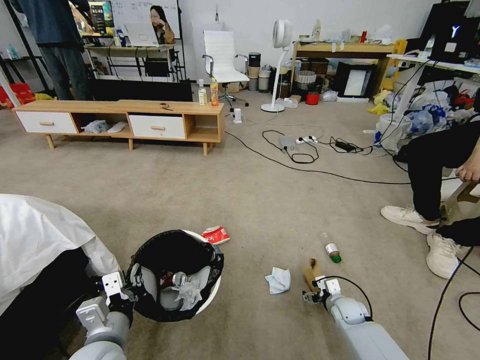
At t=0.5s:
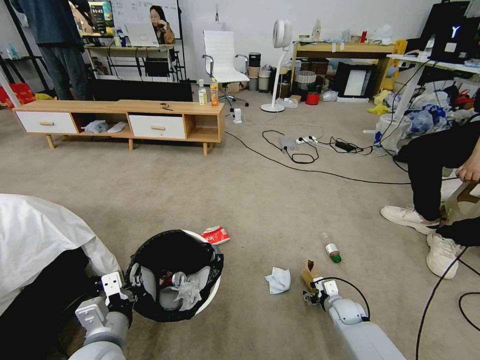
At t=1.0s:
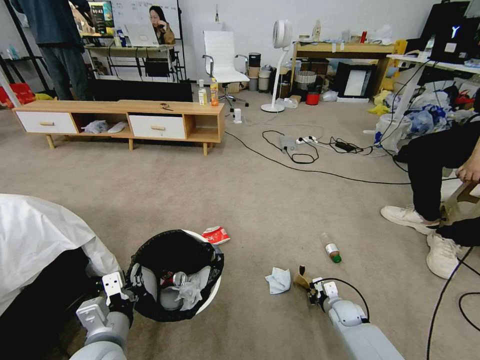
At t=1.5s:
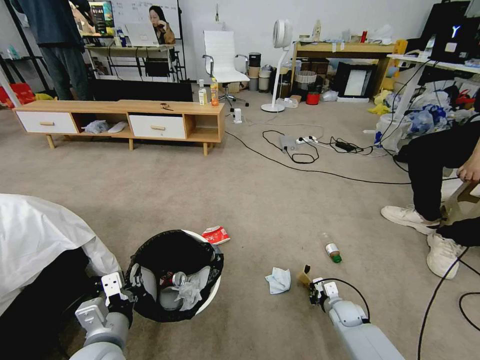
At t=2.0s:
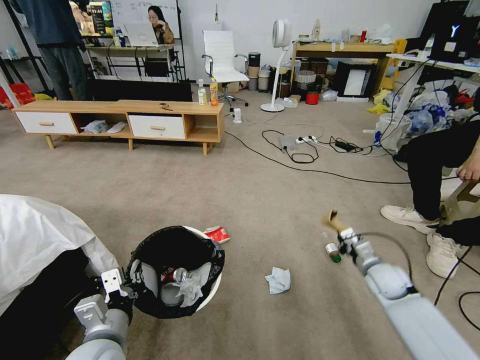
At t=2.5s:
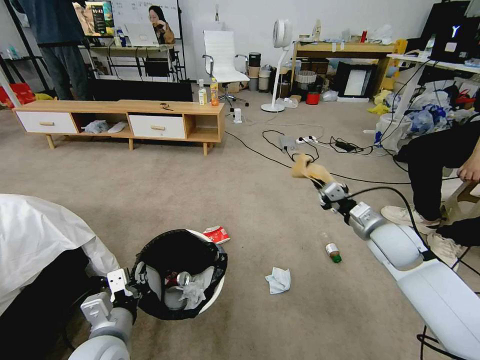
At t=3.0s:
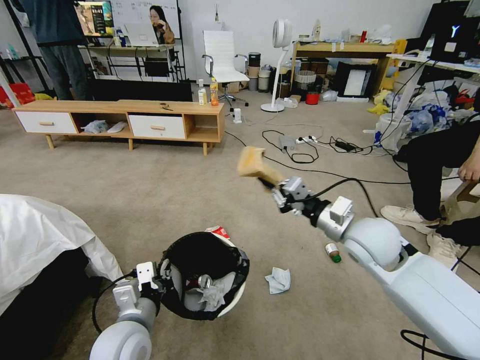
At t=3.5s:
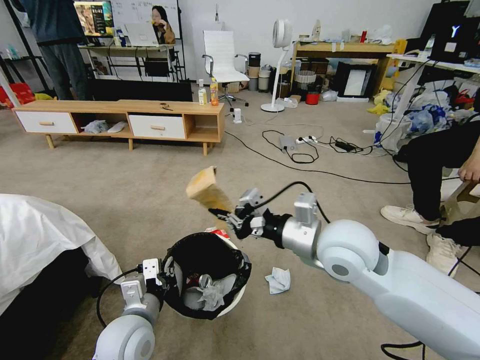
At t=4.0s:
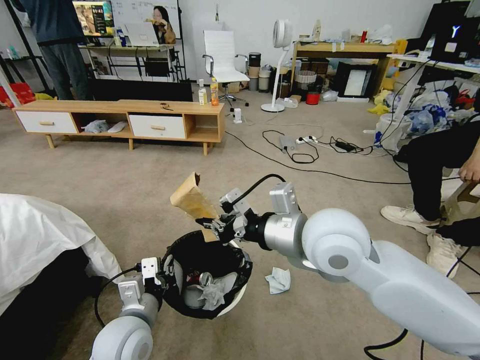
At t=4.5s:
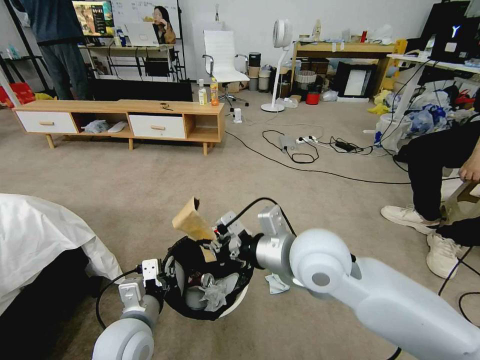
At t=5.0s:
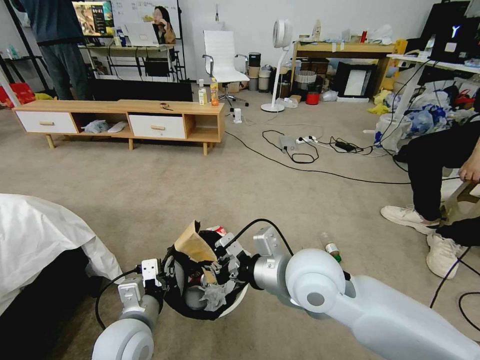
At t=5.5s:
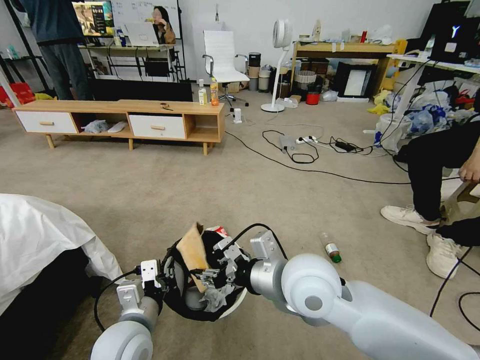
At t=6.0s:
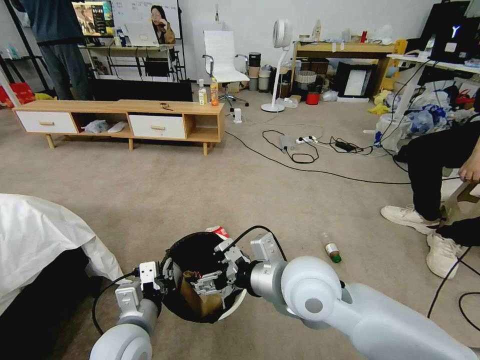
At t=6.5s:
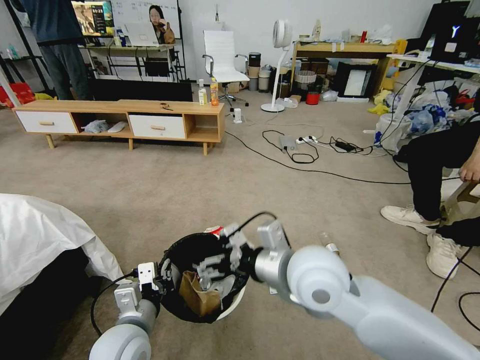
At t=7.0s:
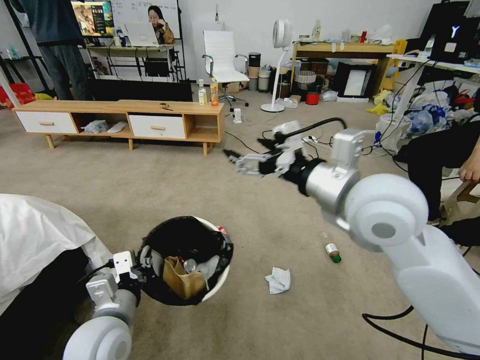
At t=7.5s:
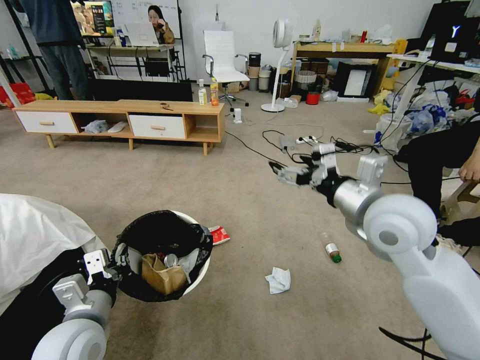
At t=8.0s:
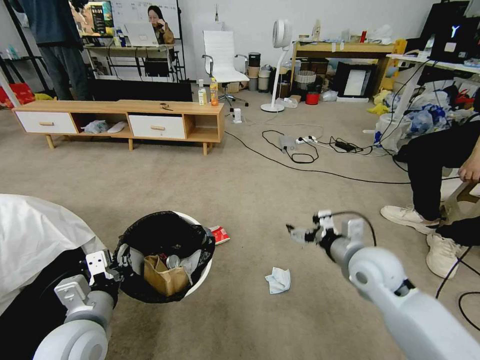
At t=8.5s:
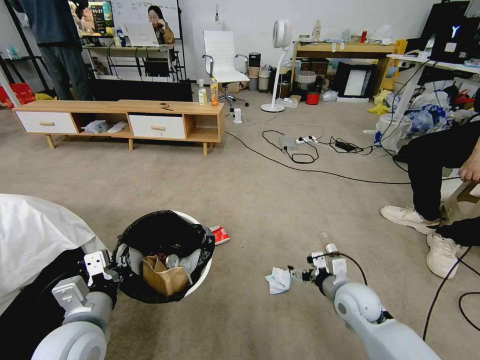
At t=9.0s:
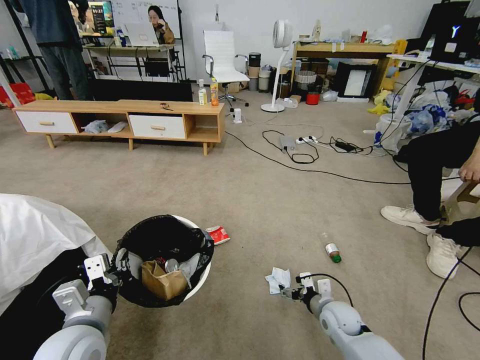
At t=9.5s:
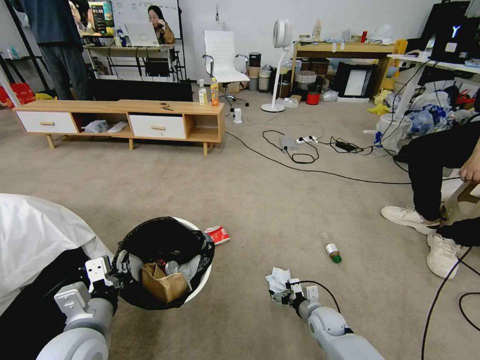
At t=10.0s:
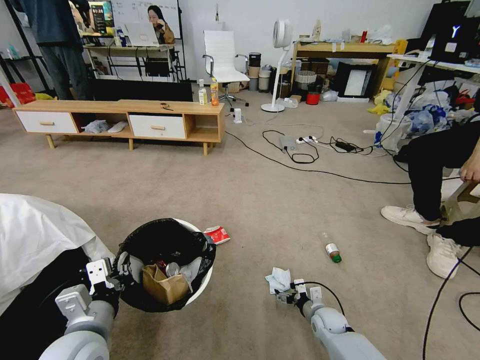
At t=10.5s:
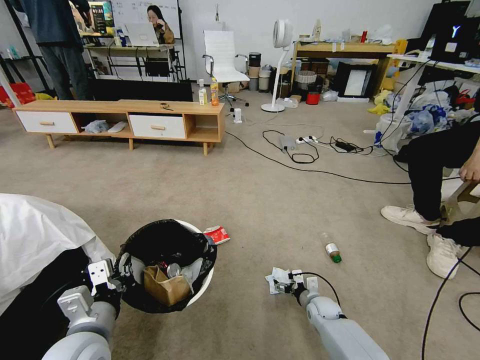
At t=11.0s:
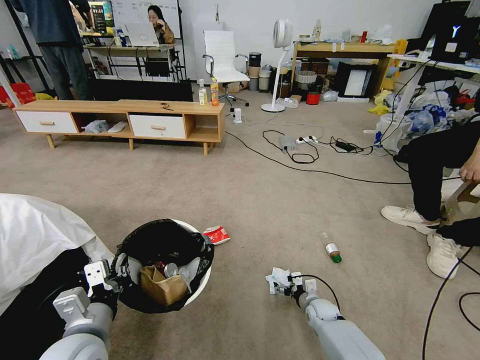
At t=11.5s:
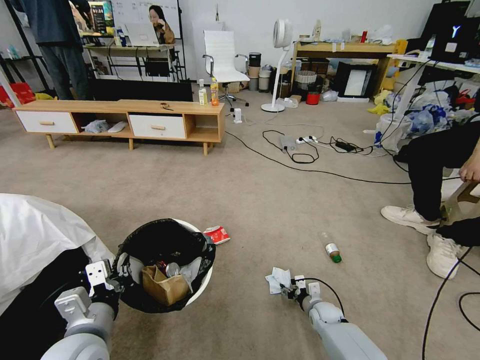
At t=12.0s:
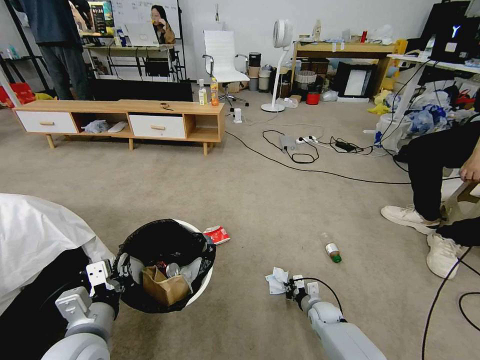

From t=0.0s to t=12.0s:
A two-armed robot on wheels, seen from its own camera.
Task of the whole recording: Pick up the trash bin and place the garbage on the floor into it.
From t=0.0s to t=2.0s: The right gripper shifts some 15 cm upward, and closes its fingers.
From t=2.0s to t=4.0s: The left gripper moves roughly 5 cm. Meanwhile the right gripper is displaced upward and to the left by some 40 cm.
From t=4.0s to t=6.0s: The right gripper is displaced downward by some 10 cm, and opens up.
From t=6.0s to t=8.0s: The left gripper travels to the left by some 5 cm. The right gripper travels to the right, downward and forward by roughly 20 cm.
From t=8.0s to t=10.0s: The right gripper heads downward, covering about 30 cm.
From t=10.0s to t=12.0s: The right gripper closes its fingers.

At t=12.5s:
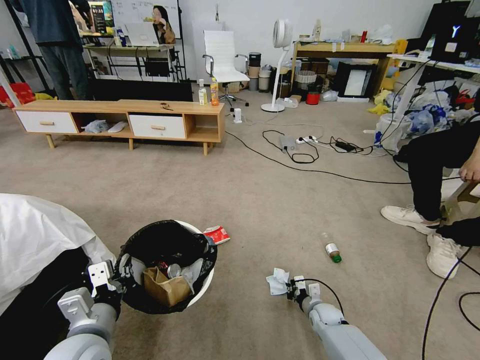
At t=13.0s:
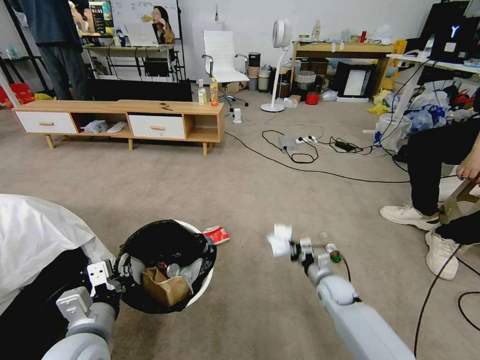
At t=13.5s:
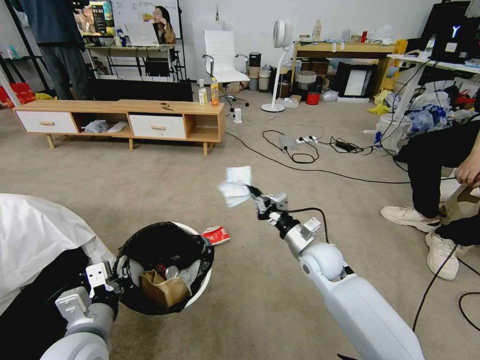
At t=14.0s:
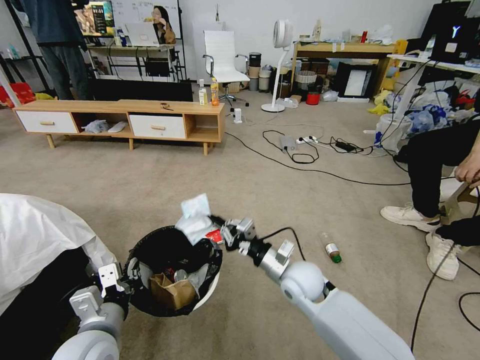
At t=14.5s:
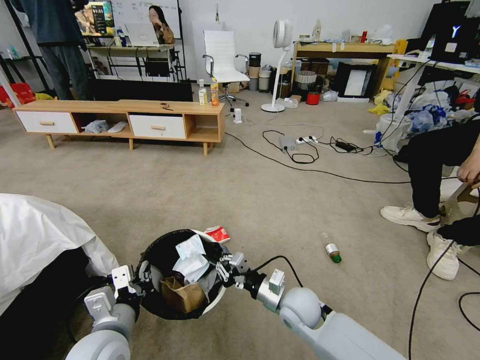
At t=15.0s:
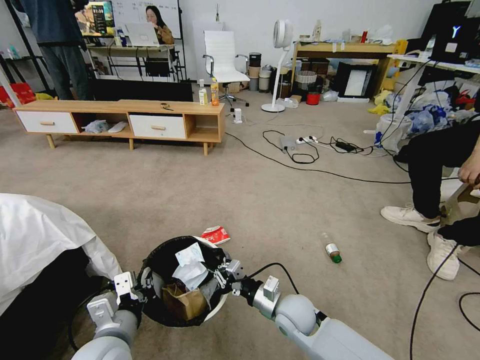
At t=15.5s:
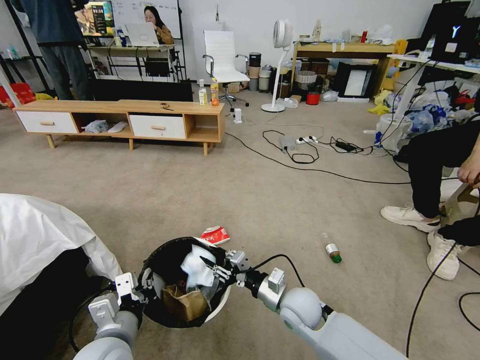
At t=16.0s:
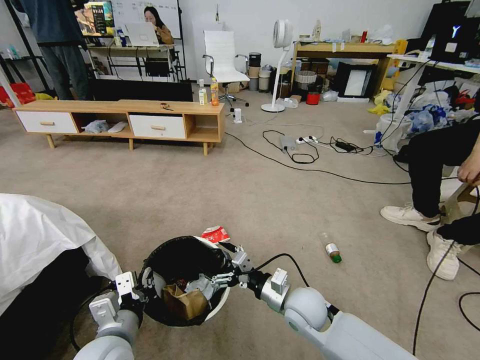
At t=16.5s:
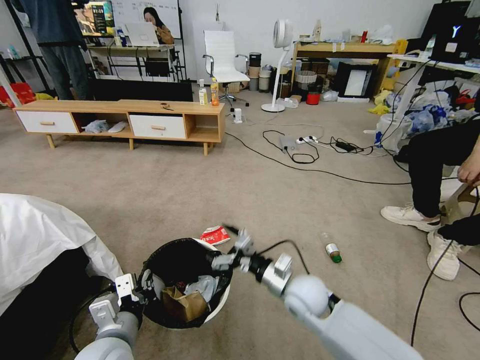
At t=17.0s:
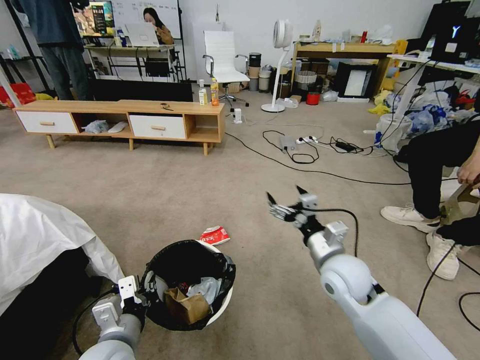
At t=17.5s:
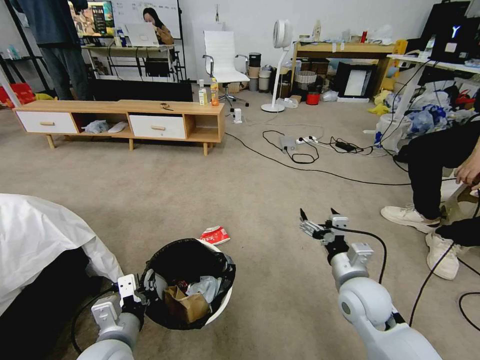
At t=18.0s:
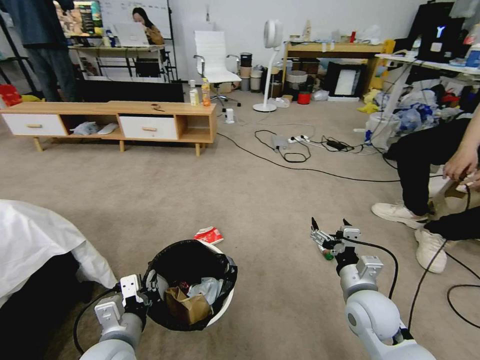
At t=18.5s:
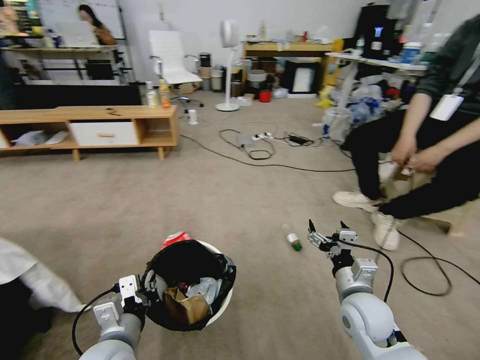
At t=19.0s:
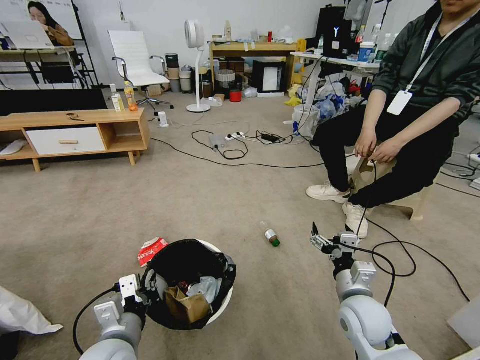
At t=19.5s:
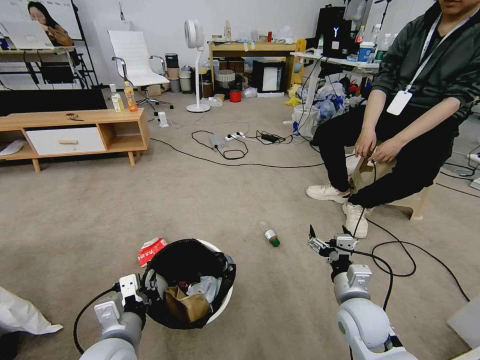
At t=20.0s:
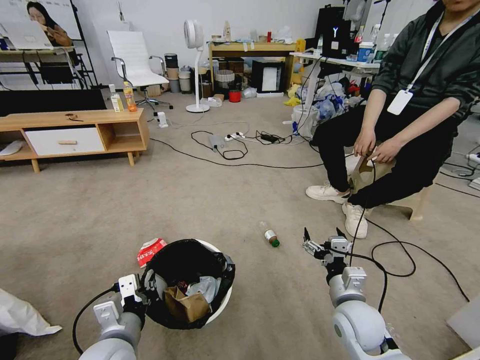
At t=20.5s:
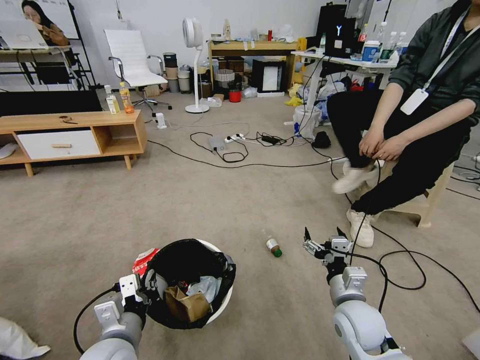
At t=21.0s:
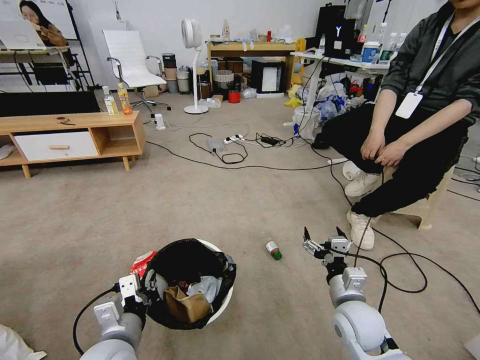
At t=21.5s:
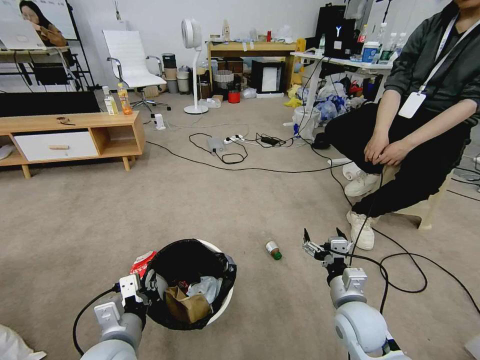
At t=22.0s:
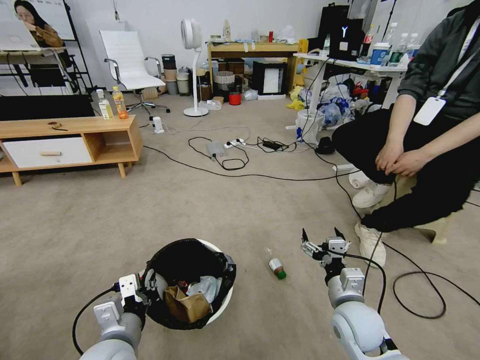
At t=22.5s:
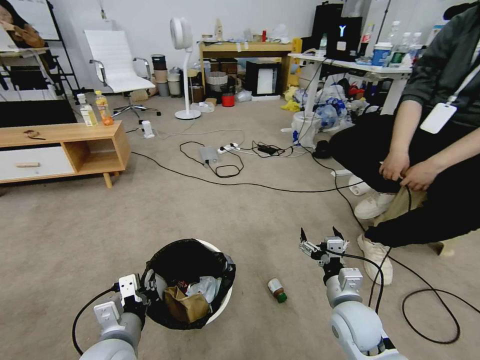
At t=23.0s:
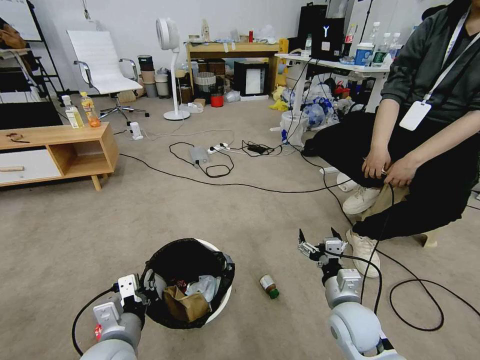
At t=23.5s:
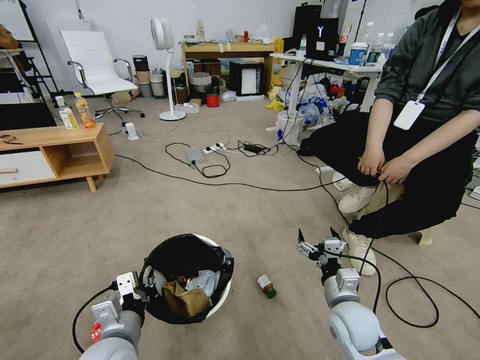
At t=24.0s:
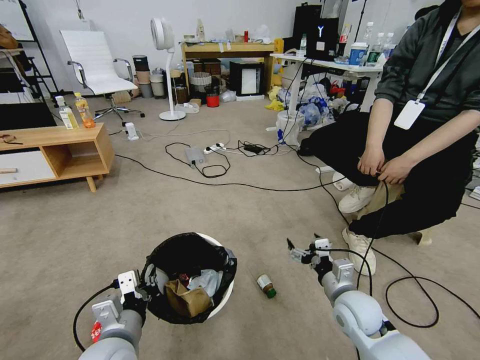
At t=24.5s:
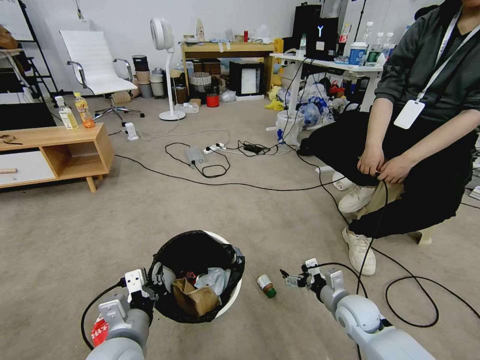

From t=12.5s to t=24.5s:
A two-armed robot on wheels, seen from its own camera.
Task of the whole recording: Pick up the trash bin and place the garbage on the floor into it.
From t=12.5s to t=14.5s: The right gripper is displaced upward and to the left by some 25 cm.
From t=14.5s to t=16.5s: The right gripper travels upward by about 5 cm, and opens its fingers.
From t=16.5s to t=18.5s: The right gripper travels to the right and backward by approximately 10 cm.
From t=22.5s to t=24.5s: The right gripper shifts some 10 cm downward, to the right and forward.

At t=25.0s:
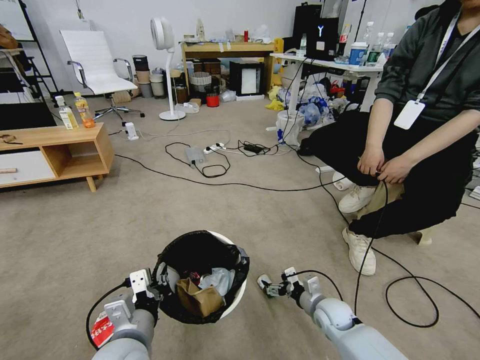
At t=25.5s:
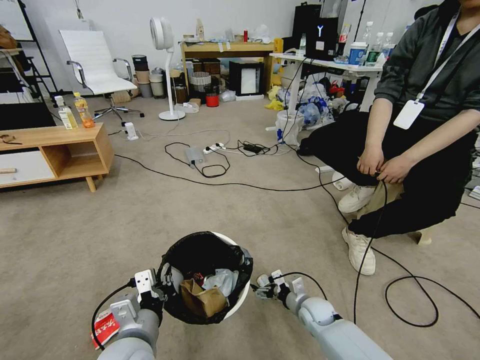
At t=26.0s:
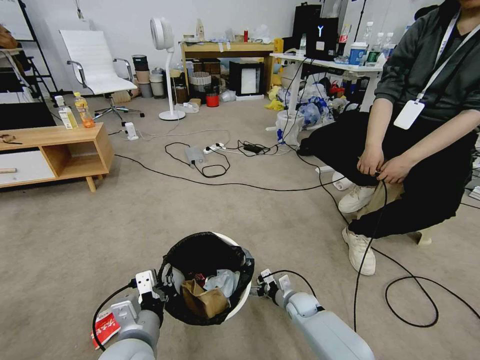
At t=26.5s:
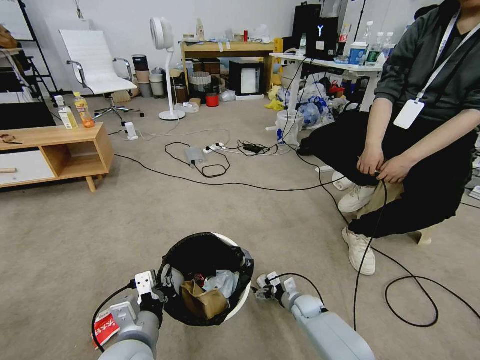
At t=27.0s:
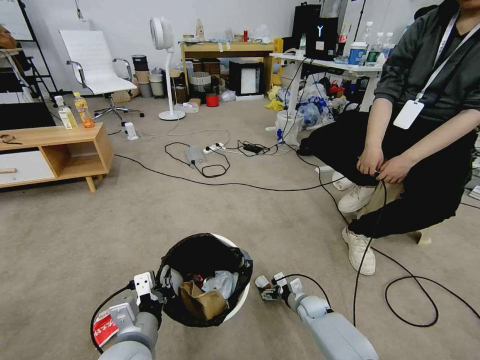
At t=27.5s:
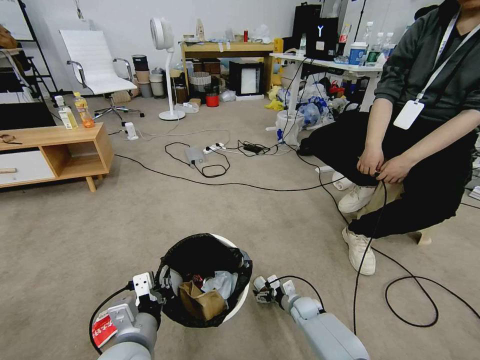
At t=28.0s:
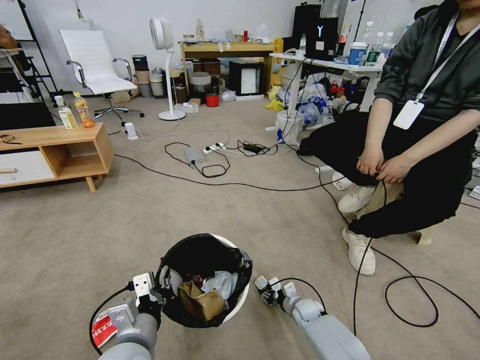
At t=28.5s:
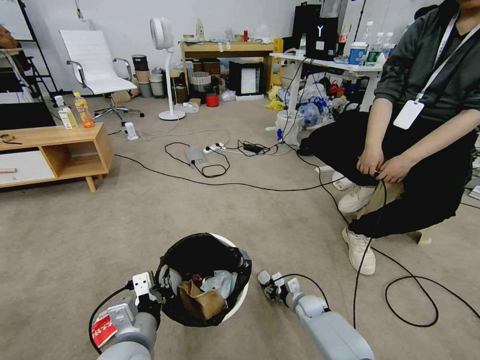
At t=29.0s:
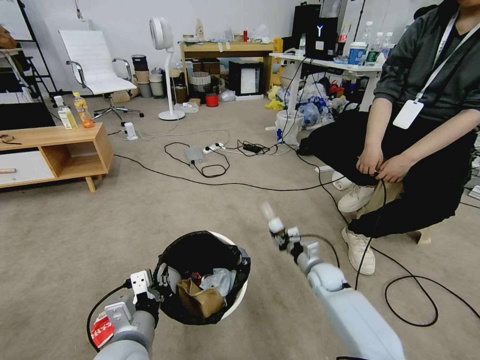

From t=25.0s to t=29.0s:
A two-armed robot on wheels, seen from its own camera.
Task of the whole recording: Pick up the trash bin and place the garbage on the floor into it.
From t=25.0s to t=27.0s: The right gripper heads downward and forward, covering about 10 cm.
From t=27.0s to t=29.0s: The right gripper heads upward, covering some 10 cm, and closes up.
